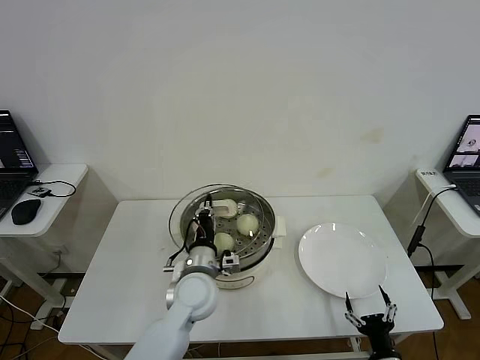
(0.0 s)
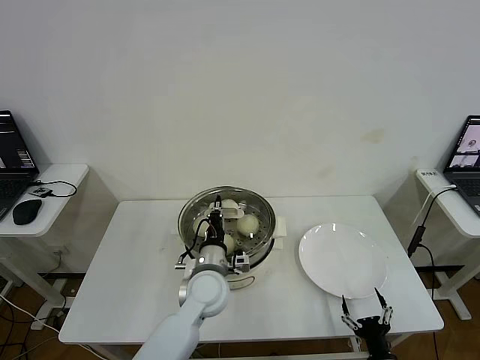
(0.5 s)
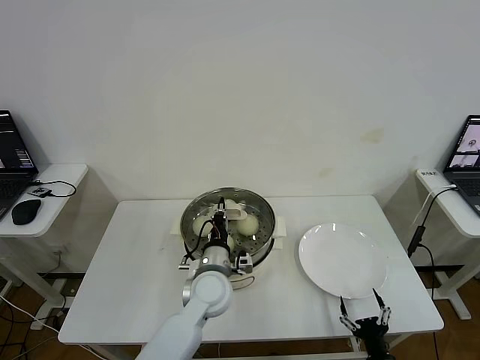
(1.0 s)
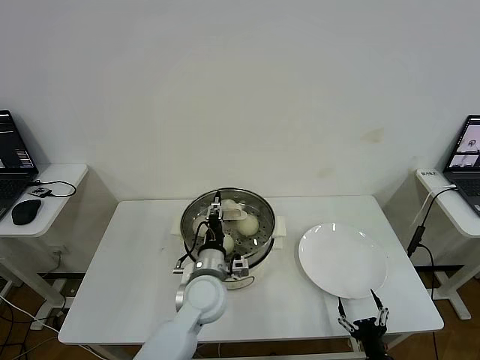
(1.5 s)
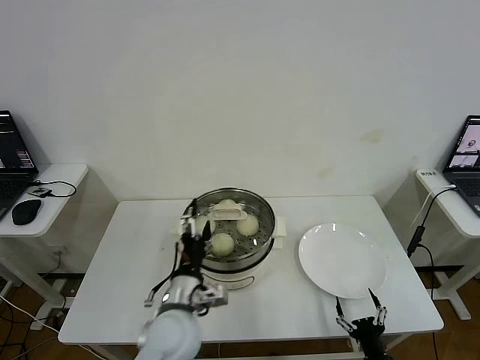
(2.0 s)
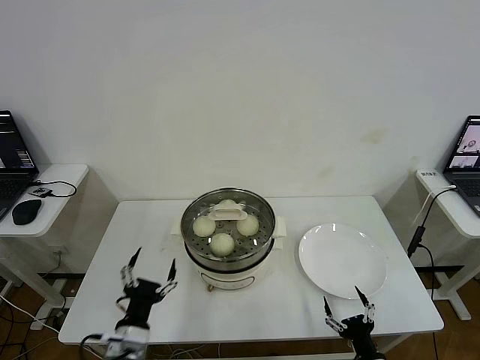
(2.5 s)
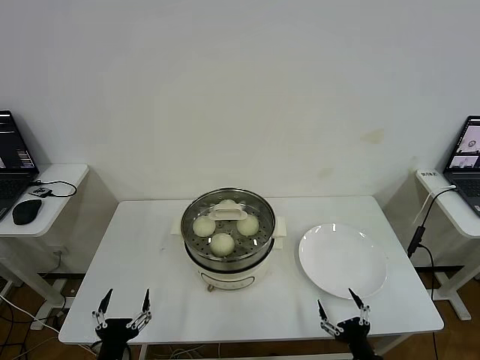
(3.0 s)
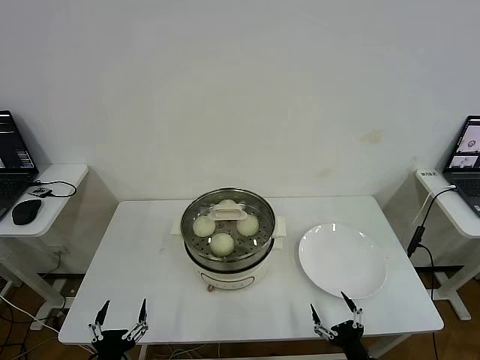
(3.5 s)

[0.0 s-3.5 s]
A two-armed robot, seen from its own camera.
0.0 to 2.0 s: The left gripper goes approximately 5 cm backward, and opens its fingers.
2.0 to 3.5 s: The left gripper travels backward, to the left and downward by about 25 cm.

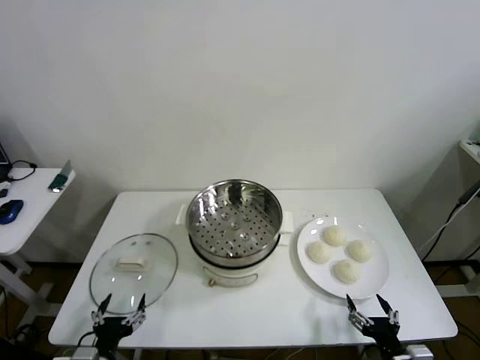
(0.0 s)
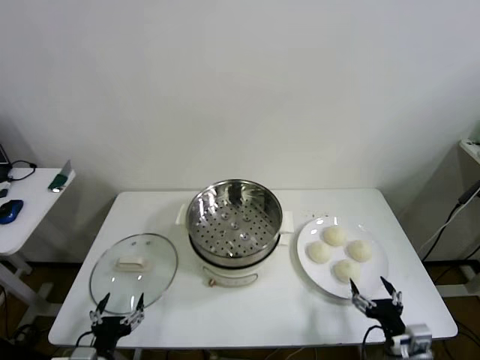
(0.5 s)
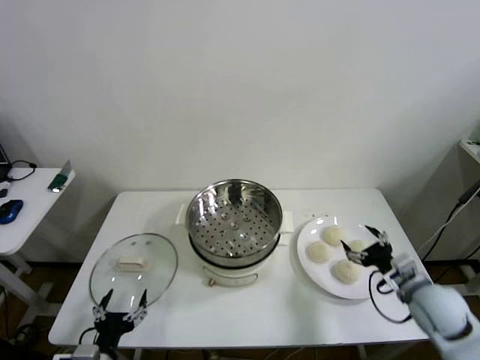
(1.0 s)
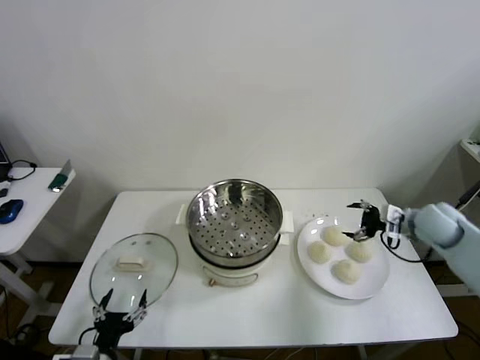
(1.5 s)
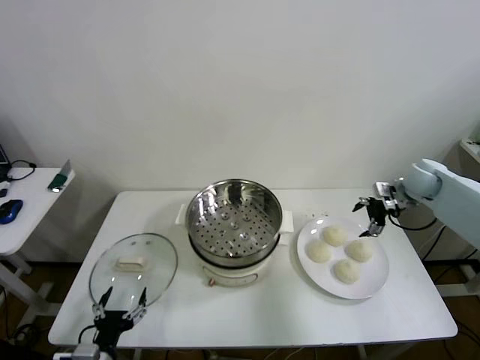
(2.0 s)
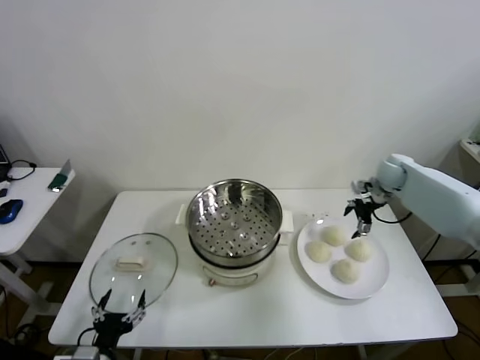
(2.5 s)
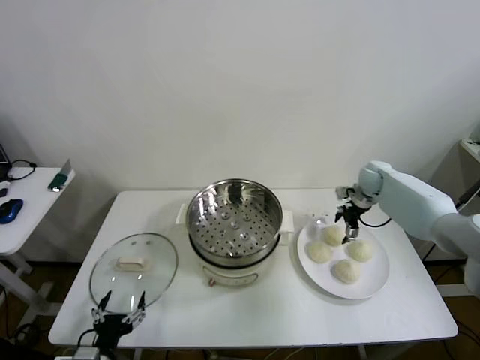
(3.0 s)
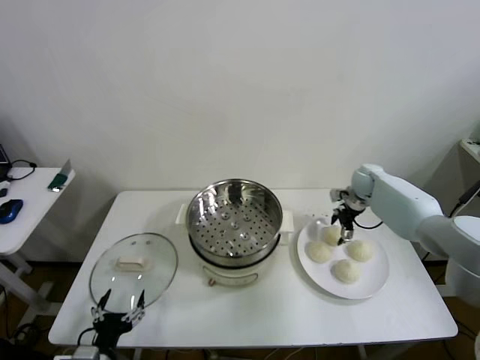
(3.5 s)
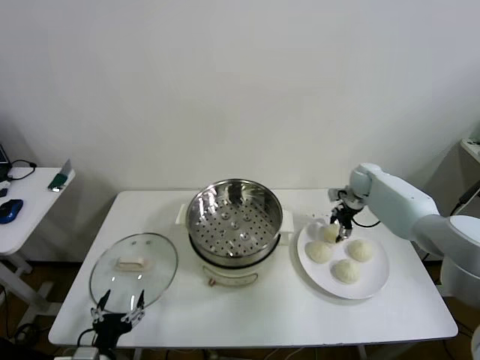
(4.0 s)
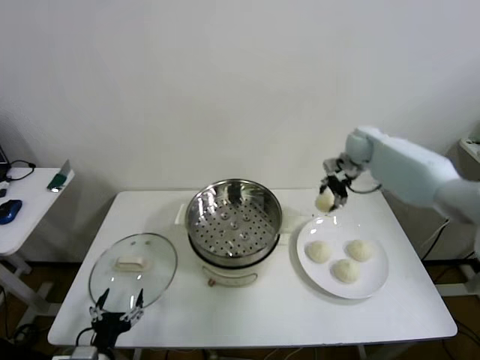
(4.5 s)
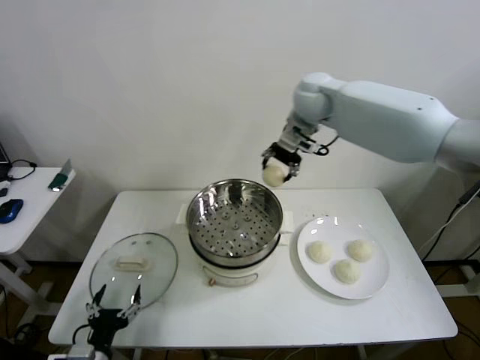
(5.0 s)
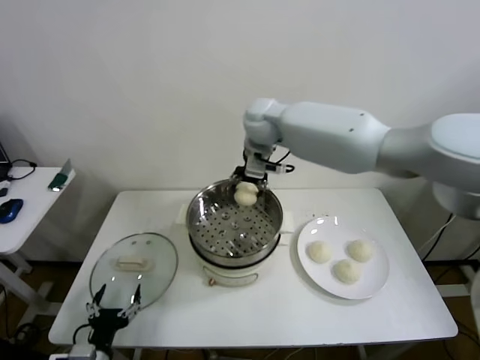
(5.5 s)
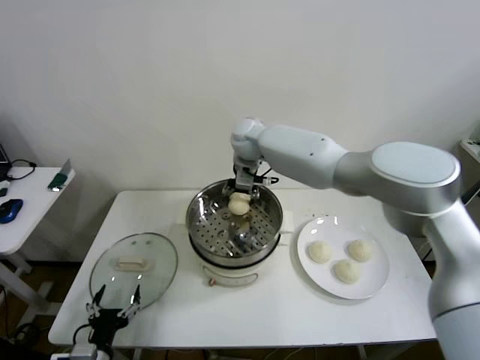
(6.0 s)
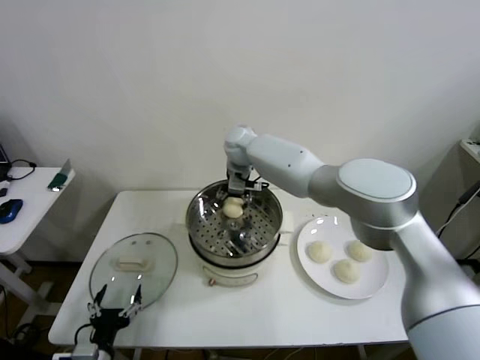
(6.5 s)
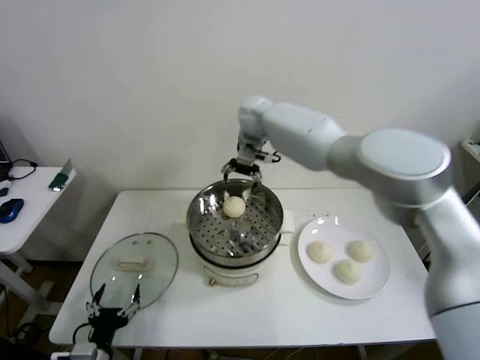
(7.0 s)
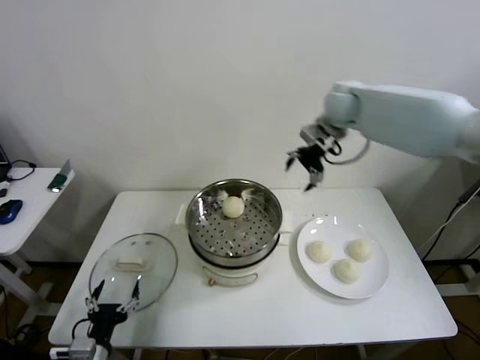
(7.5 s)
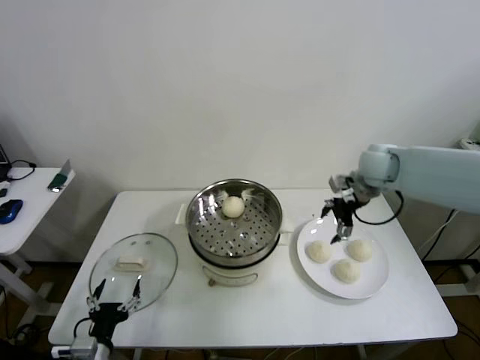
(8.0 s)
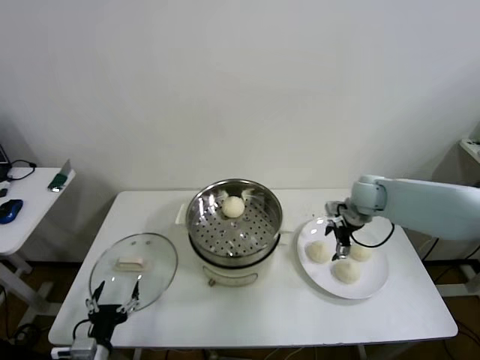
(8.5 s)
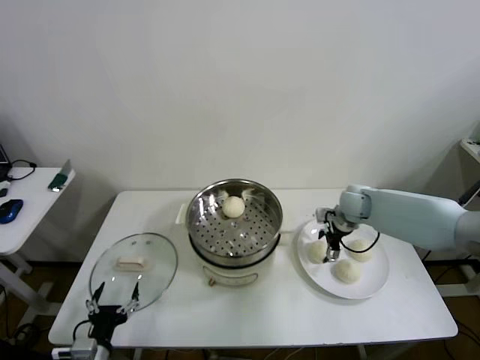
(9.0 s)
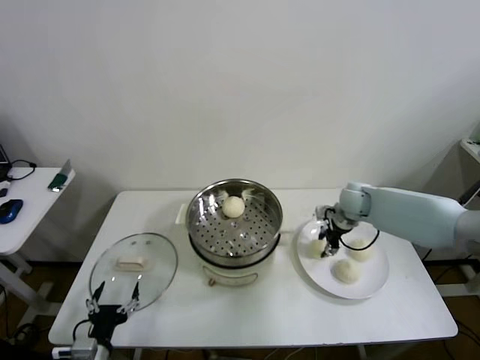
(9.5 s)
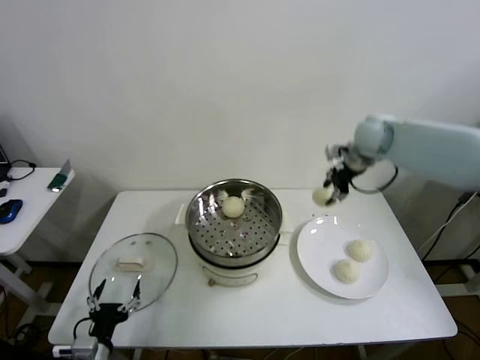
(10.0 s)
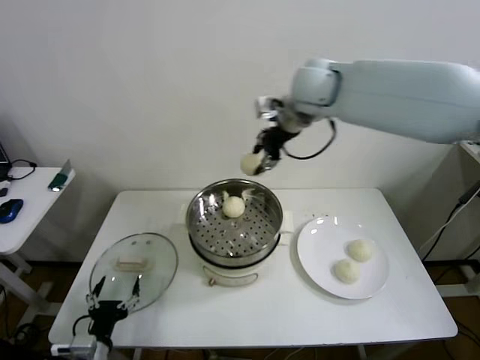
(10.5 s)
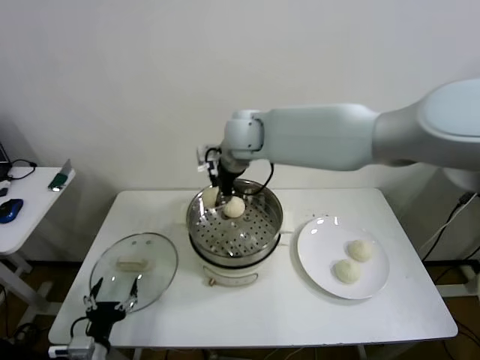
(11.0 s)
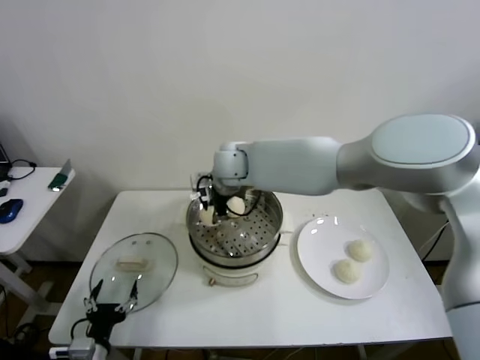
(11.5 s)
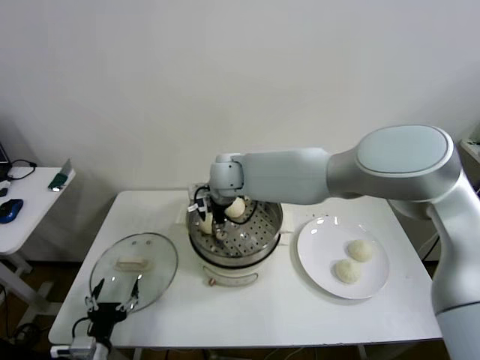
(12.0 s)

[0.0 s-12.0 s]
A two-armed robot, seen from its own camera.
Step, 0.0 to 3.5 s: Grasp the baozi in the plate with right gripper.
Step, 4.0 to 6.5 s: Place the baozi on the steamer with right gripper.
Step, 7.0 to 9.0 s: Grasp the baozi in the plate with right gripper.
2.0 to 4.0 s: The right gripper travels to the left, forward and downward by roughly 15 cm, and closes its fingers.
4.0 to 6.0 s: The right gripper shifts some 35 cm to the left and upward.
6.0 to 8.0 s: The right gripper moves to the right, roughly 30 cm, and opens.
8.0 to 10.0 s: The right gripper travels upward and forward by some 10 cm, and closes up.
10.0 to 12.0 s: The right gripper goes roughly 30 cm to the left, and opens.

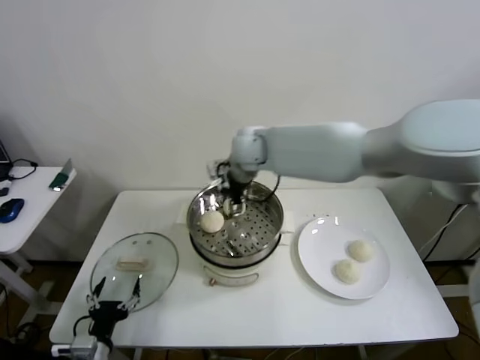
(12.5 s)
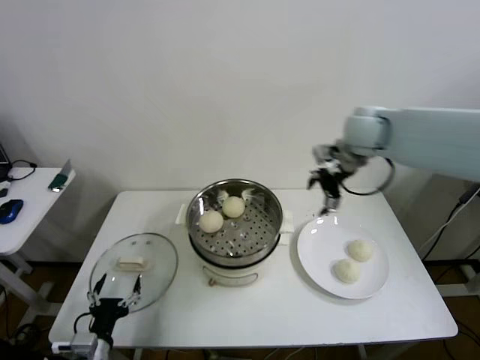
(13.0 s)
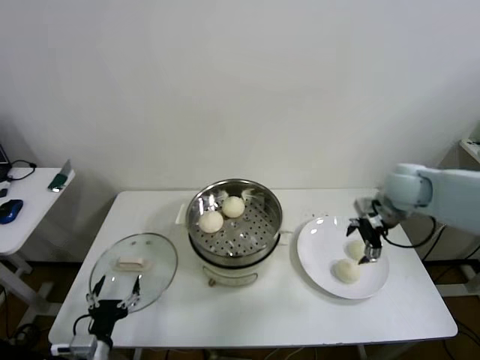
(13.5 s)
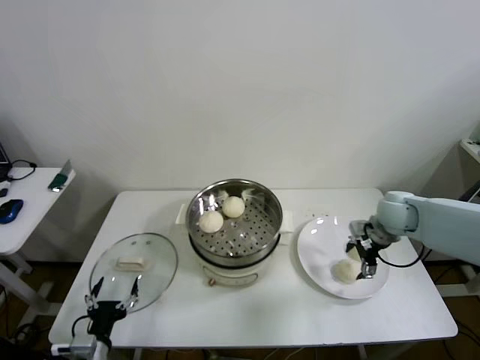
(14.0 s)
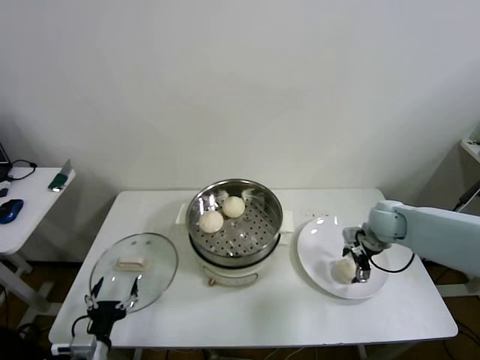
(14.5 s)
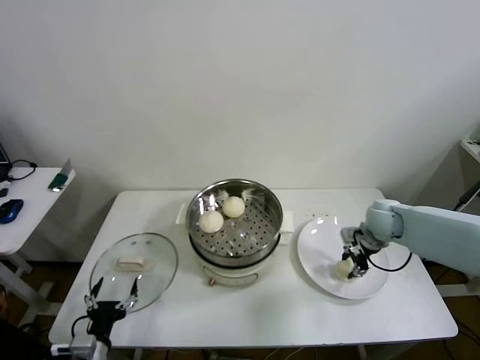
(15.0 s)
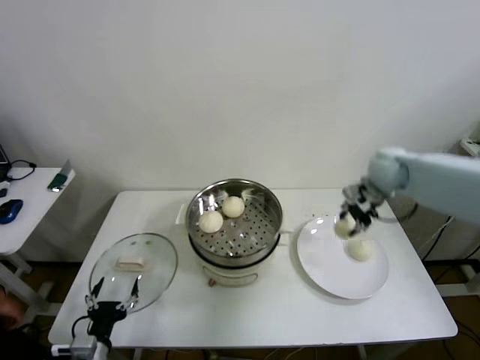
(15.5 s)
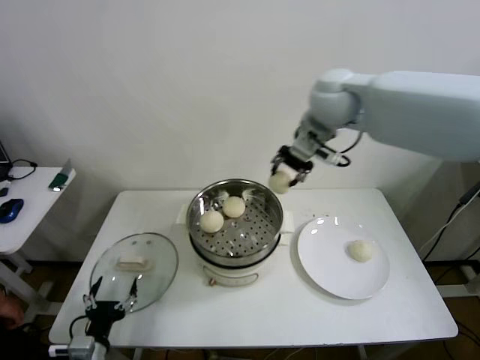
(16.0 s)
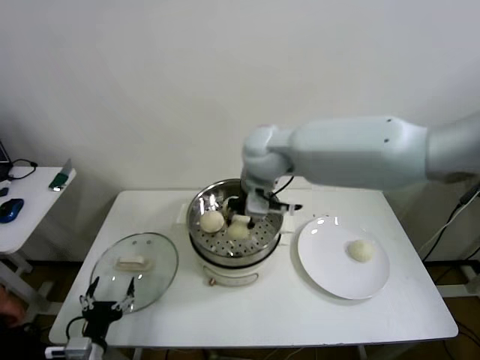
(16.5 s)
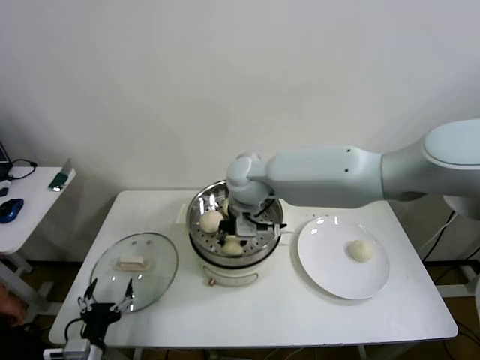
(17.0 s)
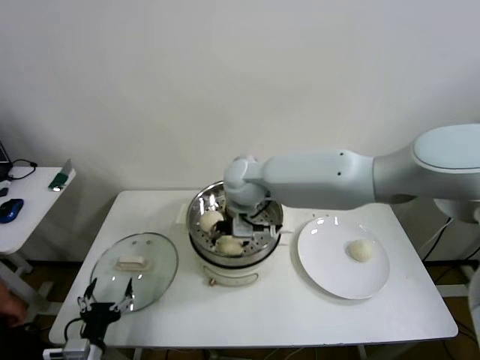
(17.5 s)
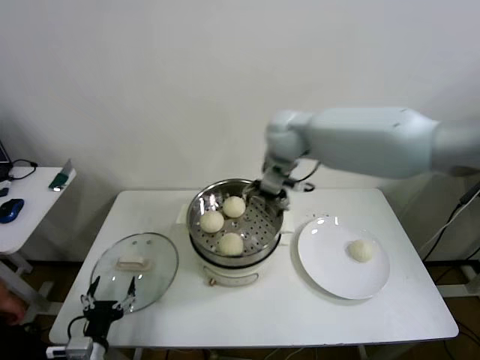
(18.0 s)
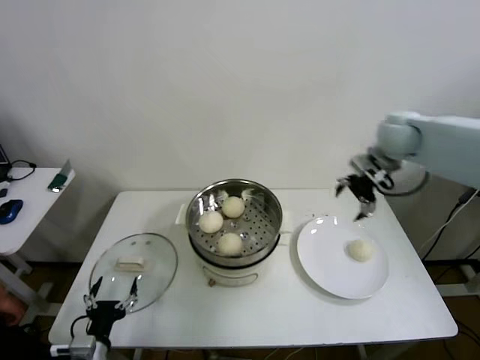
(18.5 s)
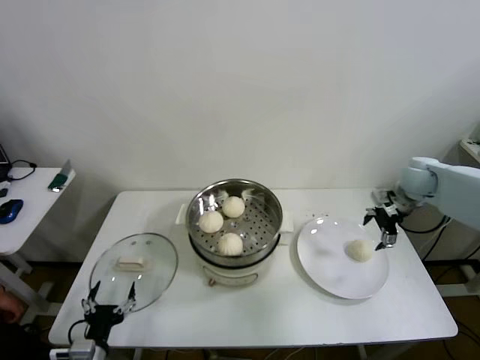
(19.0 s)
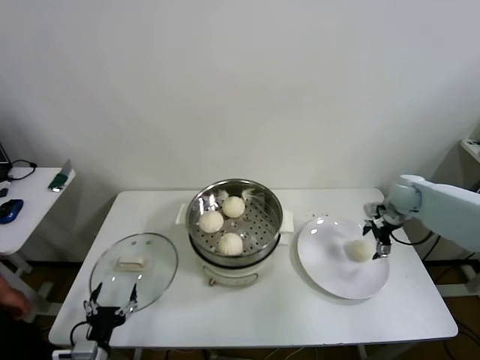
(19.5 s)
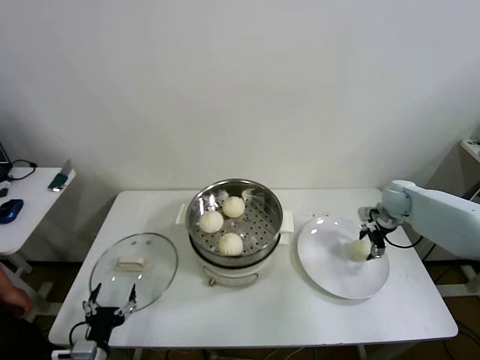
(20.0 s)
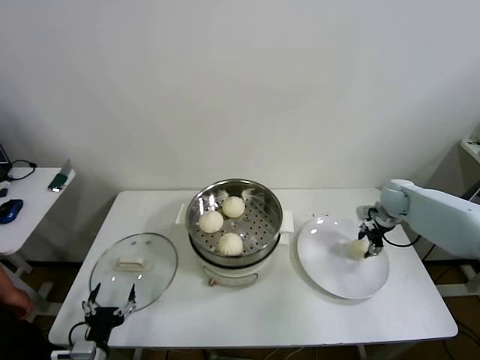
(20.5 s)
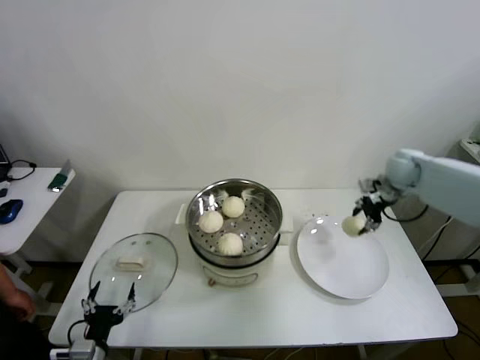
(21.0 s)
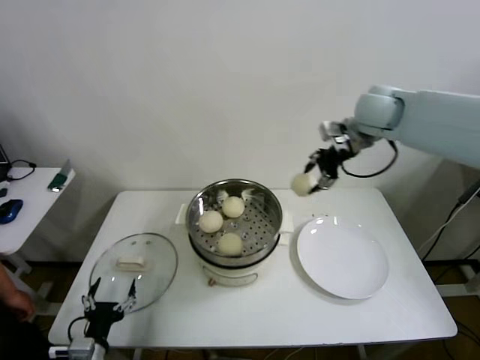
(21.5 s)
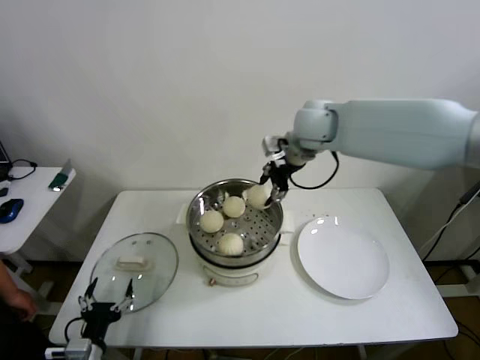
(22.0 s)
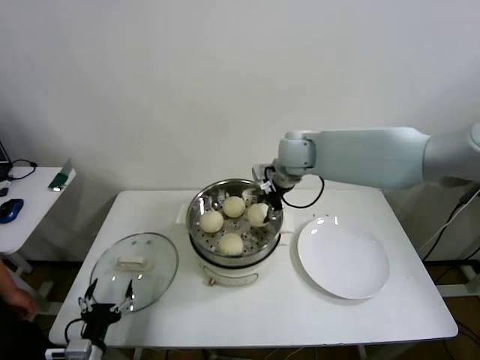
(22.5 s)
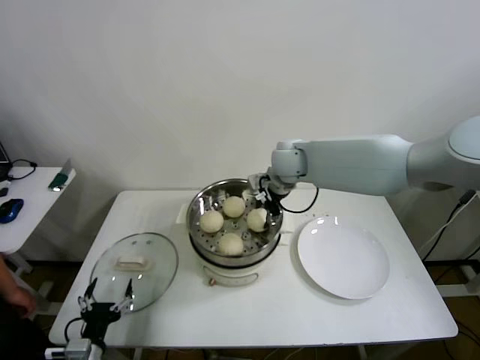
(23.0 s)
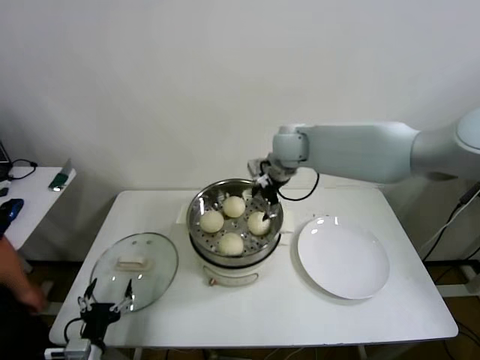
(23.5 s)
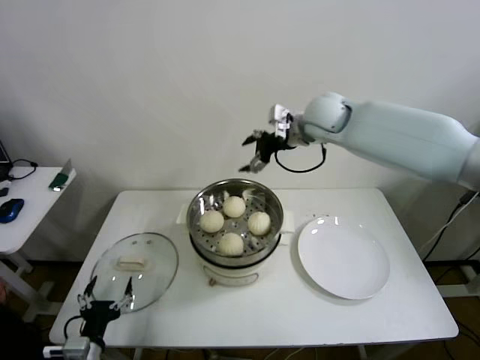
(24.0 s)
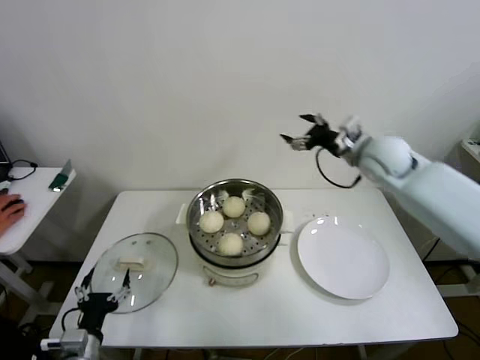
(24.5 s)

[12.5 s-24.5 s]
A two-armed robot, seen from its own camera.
Step, 12.5 to 14.5 s: Grasp the baozi in the plate with right gripper.
Step, 15.0 to 17.5 s: Place the baozi on the steamer with right gripper.
Step, 18.0 to 20.0 s: Grasp the baozi in the plate with right gripper.
Step, 20.5 to 23.0 s: Place the baozi on the steamer with right gripper.
12.5 to 14.5 s: The right gripper goes approximately 35 cm to the right and downward.
14.5 to 16.5 s: The right gripper goes some 40 cm to the left and upward, and closes.
16.5 to 18.5 s: The right gripper heads to the right, covering approximately 30 cm, and opens.
18.5 to 20.5 s: The right gripper goes approximately 20 cm downward, and closes.
20.5 to 22.5 s: The right gripper goes about 35 cm to the left and upward.
22.5 to 24.5 s: The right gripper goes approximately 20 cm to the right, and opens its fingers.
